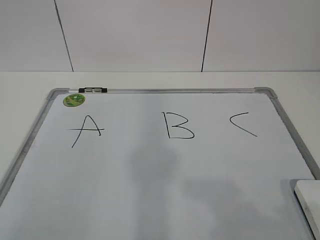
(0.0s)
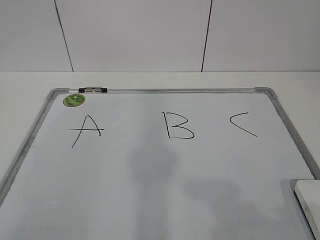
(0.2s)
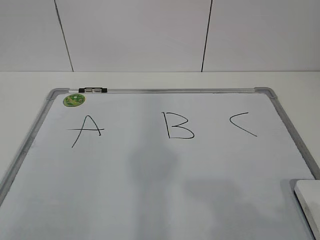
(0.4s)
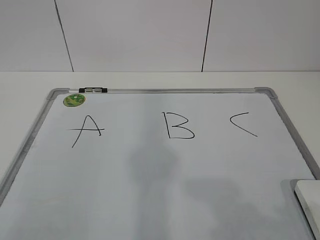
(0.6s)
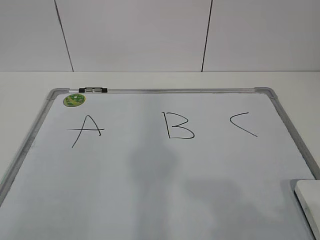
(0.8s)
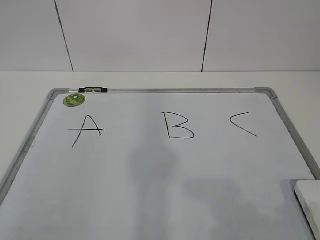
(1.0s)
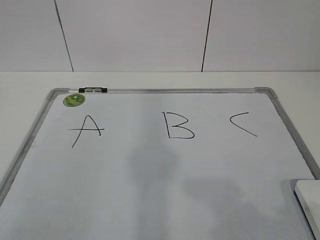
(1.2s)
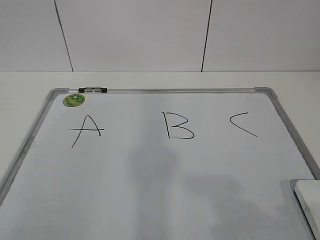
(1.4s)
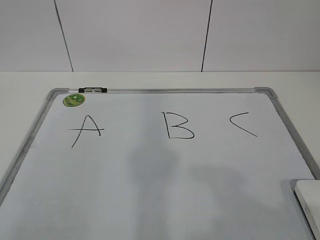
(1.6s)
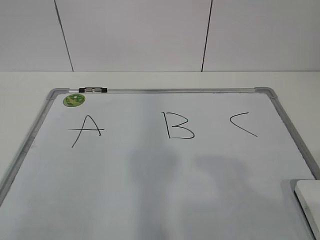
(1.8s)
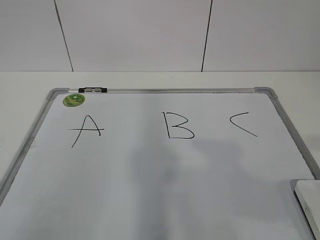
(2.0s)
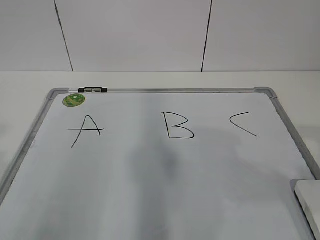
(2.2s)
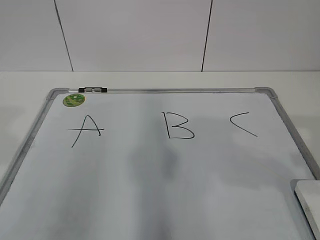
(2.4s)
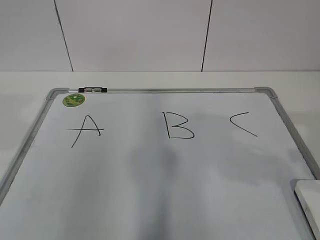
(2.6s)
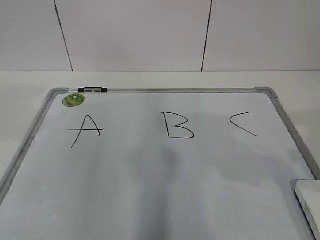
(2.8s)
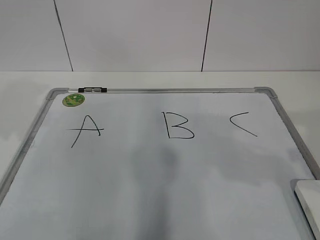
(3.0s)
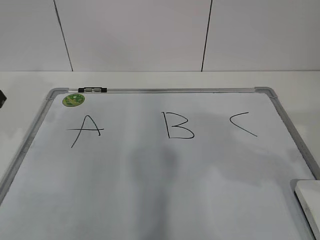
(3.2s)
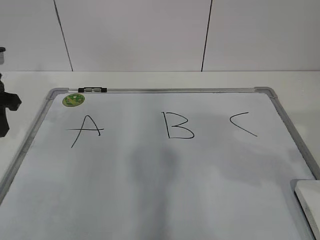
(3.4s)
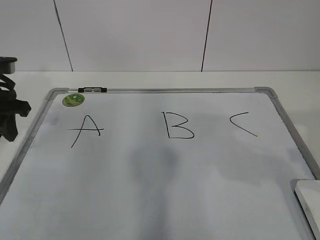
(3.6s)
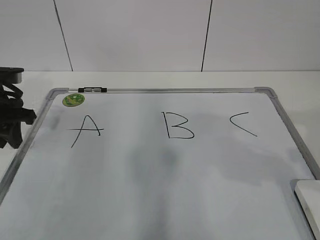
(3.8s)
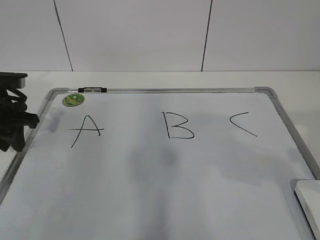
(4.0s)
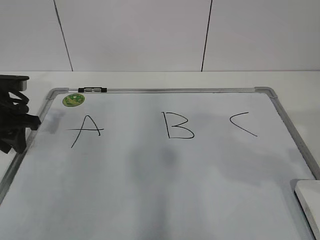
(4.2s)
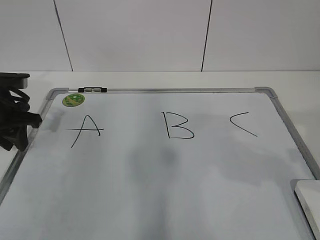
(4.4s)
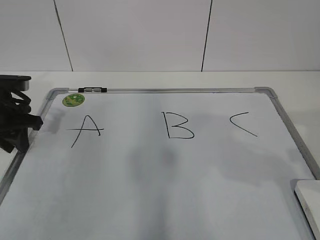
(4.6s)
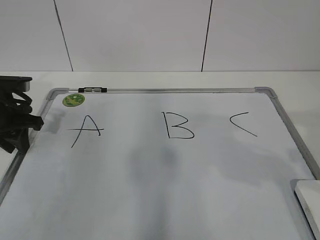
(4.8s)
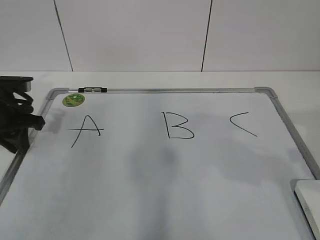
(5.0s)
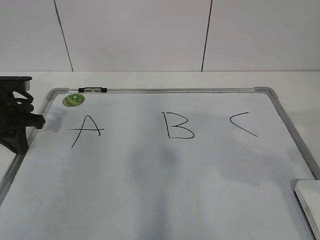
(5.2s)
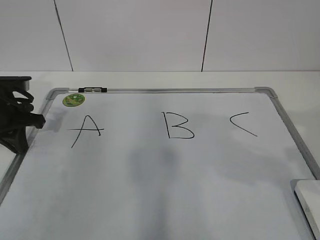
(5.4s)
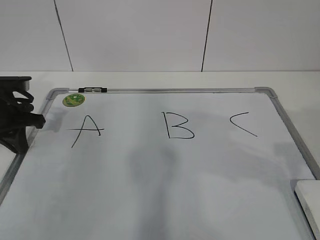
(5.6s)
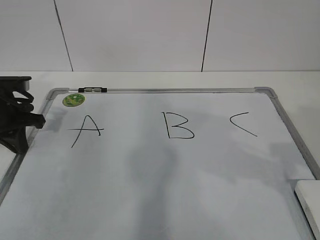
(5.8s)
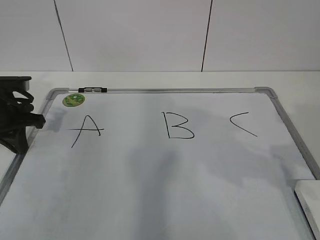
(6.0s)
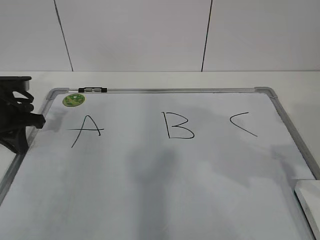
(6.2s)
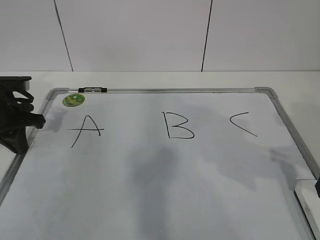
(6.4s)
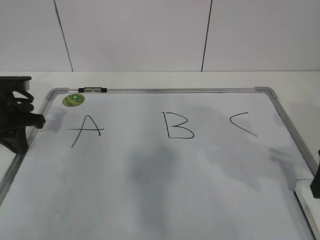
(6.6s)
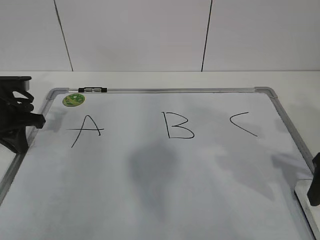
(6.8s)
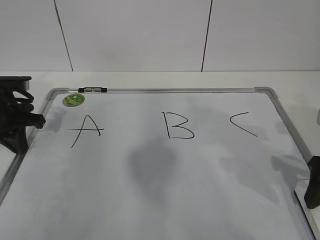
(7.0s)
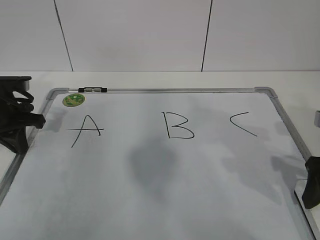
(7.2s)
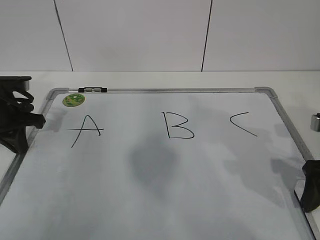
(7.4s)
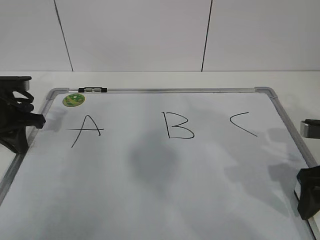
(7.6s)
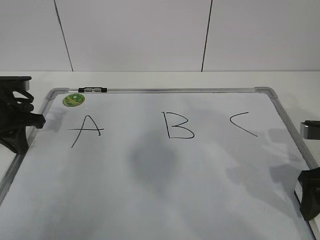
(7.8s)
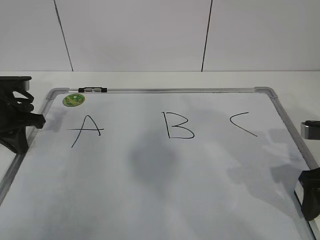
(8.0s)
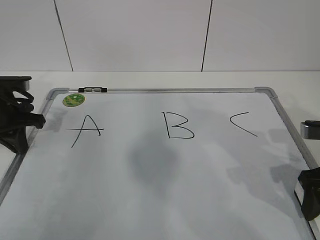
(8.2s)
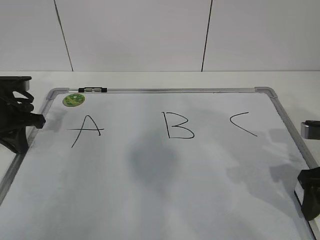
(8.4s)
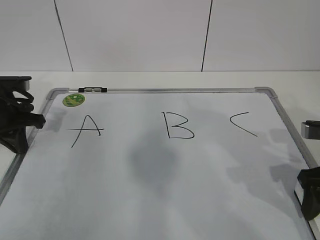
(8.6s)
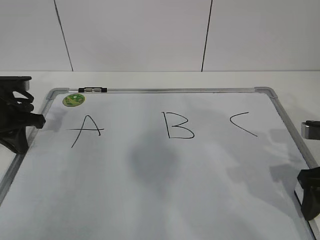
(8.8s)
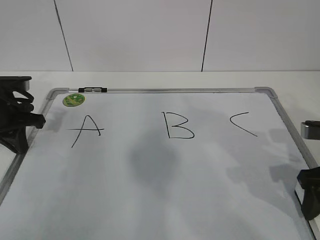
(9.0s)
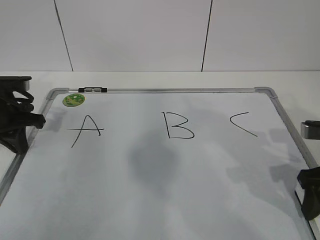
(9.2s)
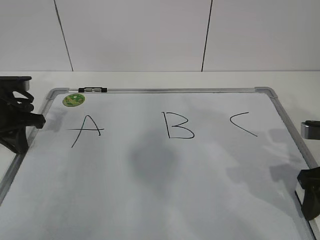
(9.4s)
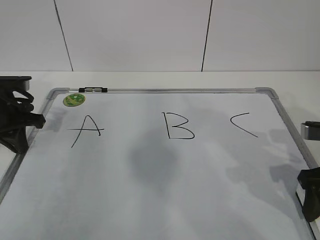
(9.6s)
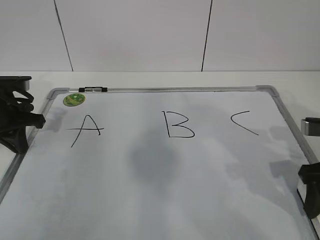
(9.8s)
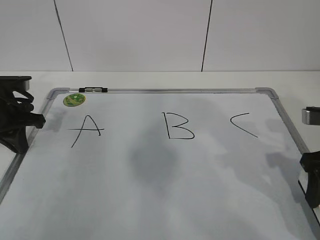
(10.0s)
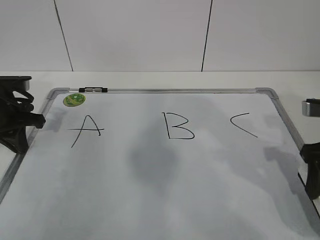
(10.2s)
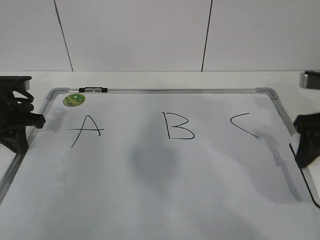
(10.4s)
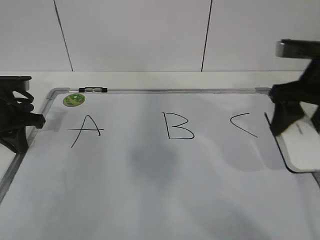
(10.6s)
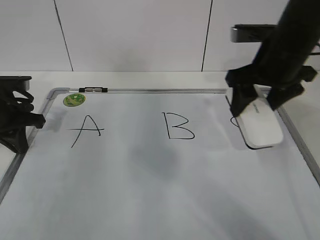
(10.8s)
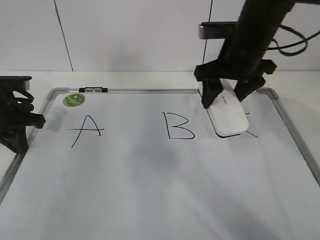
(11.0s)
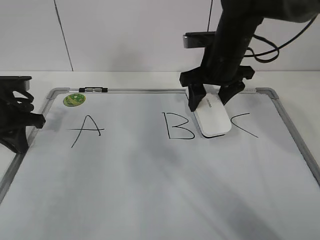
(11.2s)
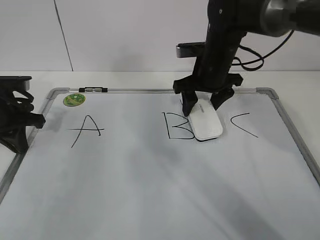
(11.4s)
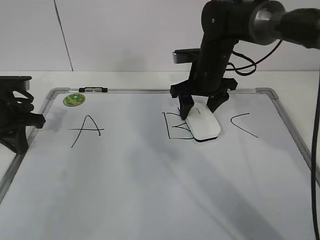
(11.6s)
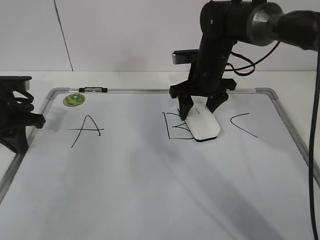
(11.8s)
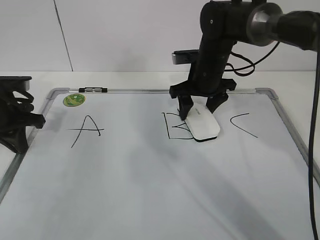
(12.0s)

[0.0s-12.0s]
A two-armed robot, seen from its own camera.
Task of the whole recording: pick up the eraser on the blackboard and erase the letter "B".
Step, 0.0s to 4.2s: Hold the drawing board steady with your left hand.
1.6s to 3.0s: The right gripper goes some 15 cm forward. Meanwhile the left gripper goes roughly 25 cm forward.
3.0s to 4.4s: The left gripper travels downward and forward by some 15 cm.
4.4s to 6.0s: The left gripper closes its fingers.
6.0s to 7.6s: The right gripper heads downward and forward, covering some 10 cm.
9.0s to 10.4s: The right gripper heads upward, covering approximately 5 cm.
10.4s to 12.0s: The right gripper heads forward and to the left, covering some 25 cm.

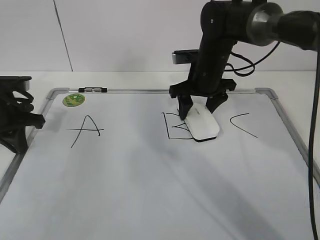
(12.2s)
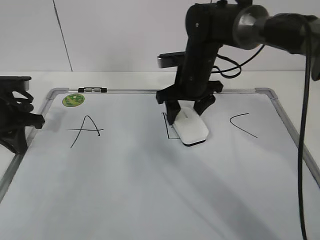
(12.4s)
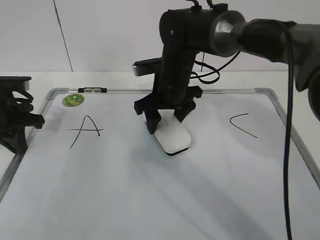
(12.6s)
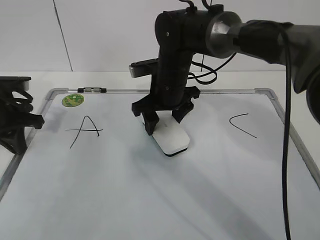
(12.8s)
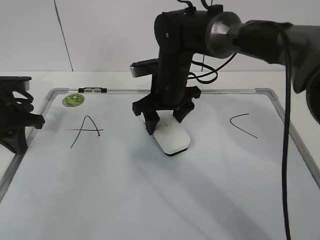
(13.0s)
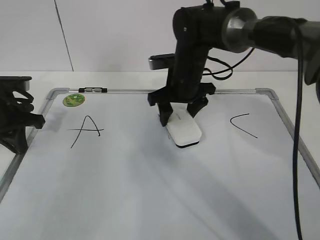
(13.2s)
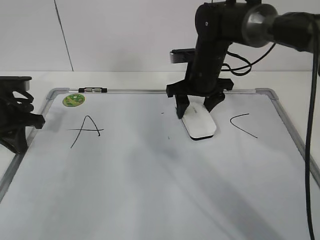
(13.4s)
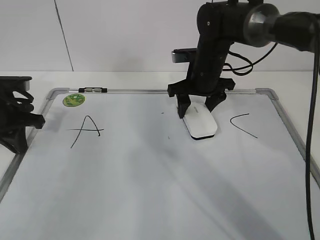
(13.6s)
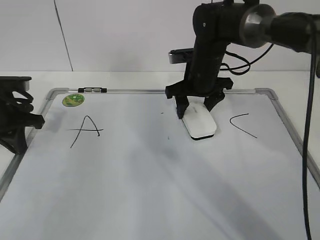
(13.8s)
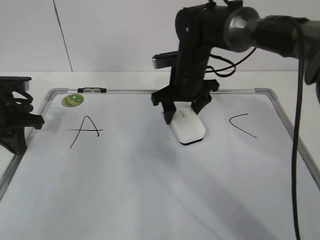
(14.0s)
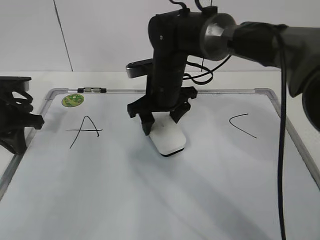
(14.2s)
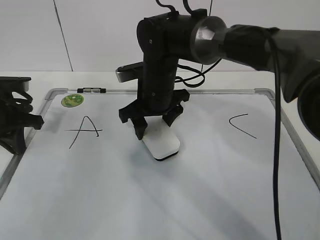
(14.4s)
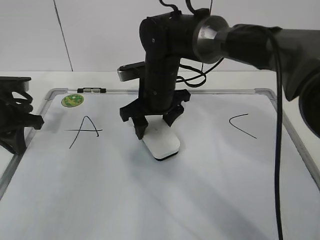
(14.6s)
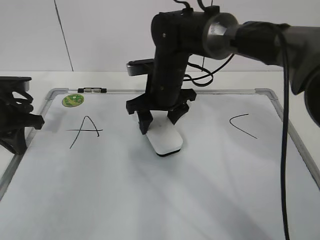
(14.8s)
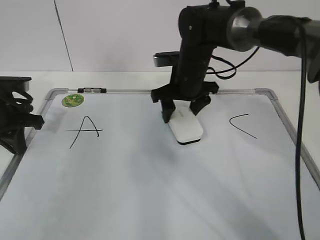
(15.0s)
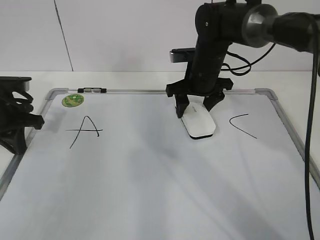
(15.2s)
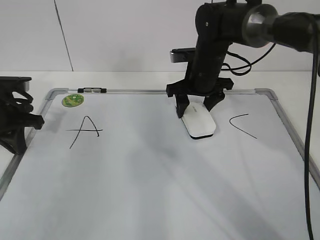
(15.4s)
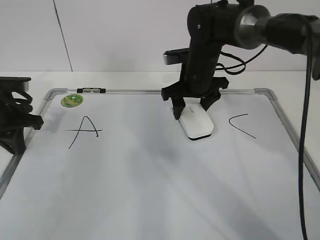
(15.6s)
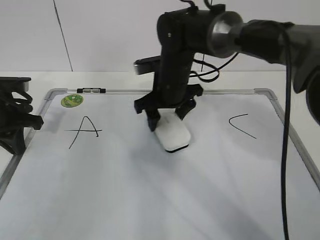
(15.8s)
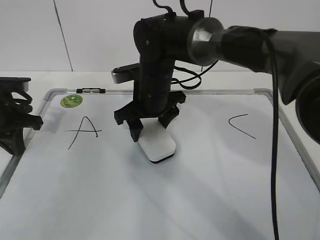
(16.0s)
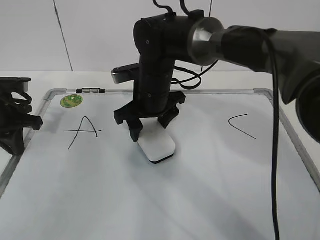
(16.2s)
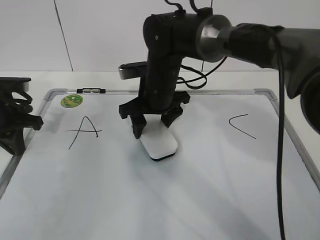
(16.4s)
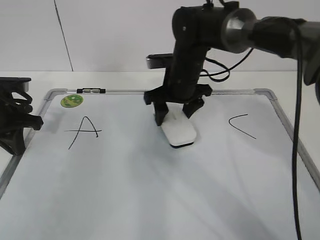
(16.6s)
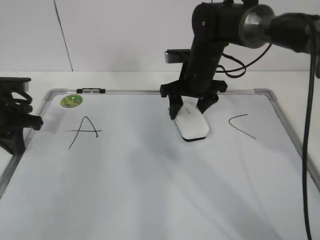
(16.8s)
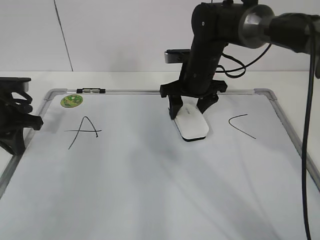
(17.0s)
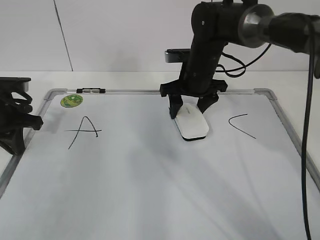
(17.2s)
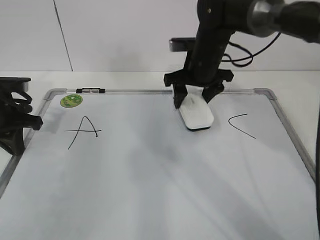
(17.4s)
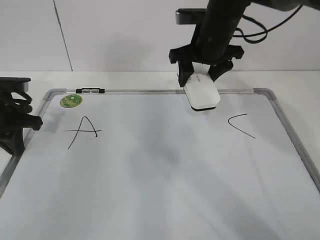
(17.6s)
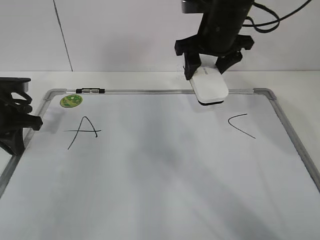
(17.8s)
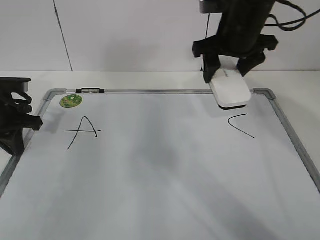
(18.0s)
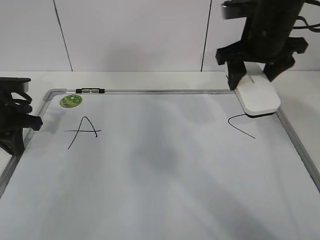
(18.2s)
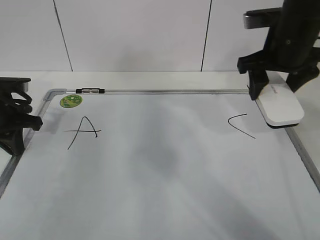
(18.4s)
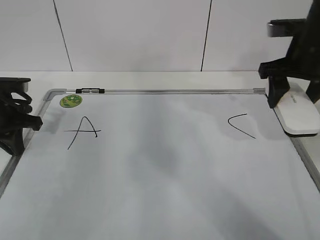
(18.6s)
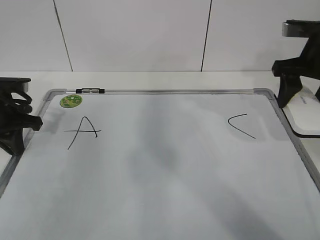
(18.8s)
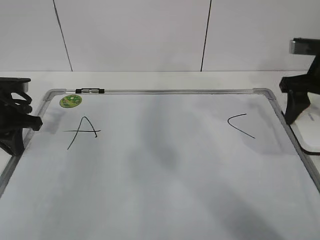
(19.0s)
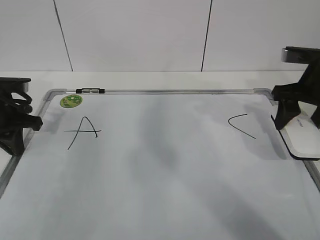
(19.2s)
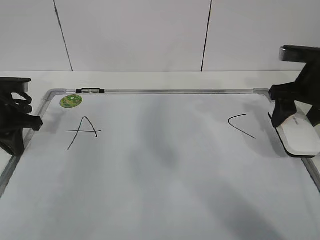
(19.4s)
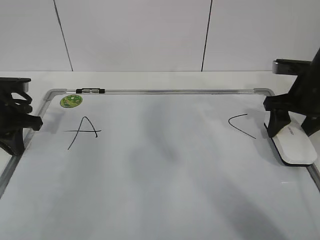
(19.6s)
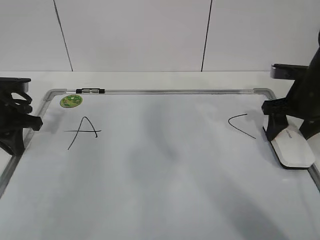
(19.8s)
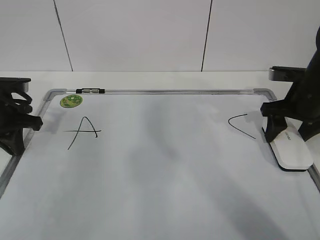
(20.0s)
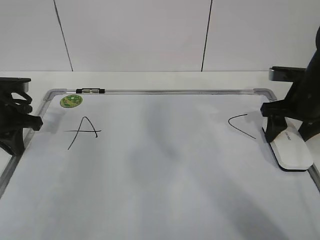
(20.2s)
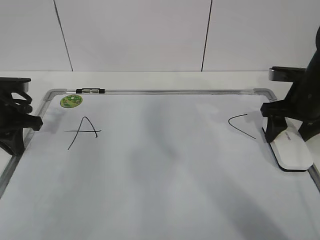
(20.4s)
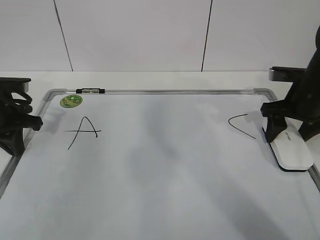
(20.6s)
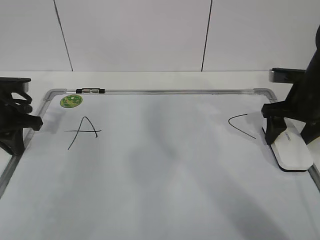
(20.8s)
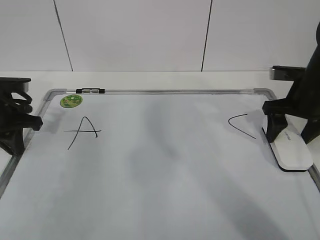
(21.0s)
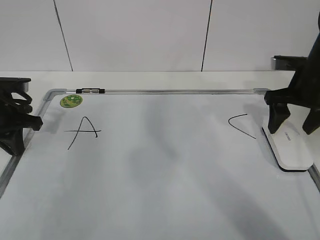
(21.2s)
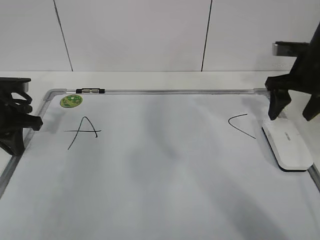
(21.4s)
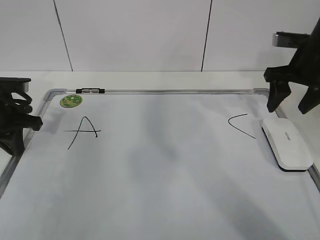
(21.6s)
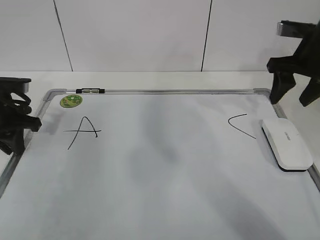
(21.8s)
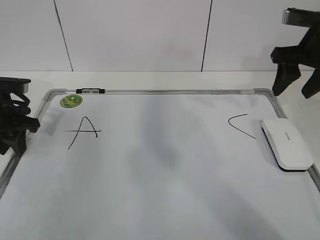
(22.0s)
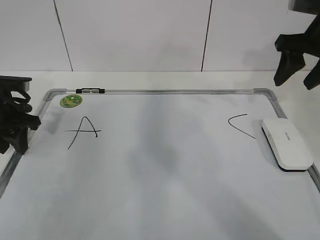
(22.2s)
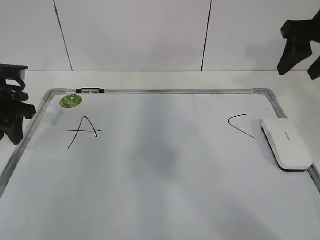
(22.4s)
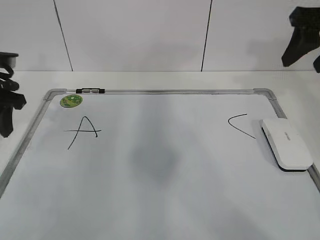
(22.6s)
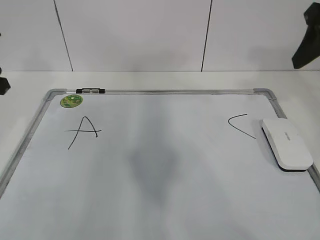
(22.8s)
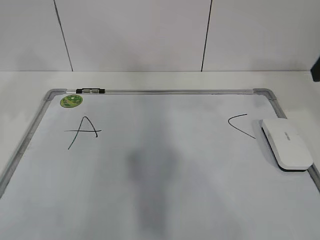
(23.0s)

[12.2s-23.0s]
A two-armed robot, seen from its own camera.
Task of the whole recording: pick up the eraser on the blackboard and erase the letter "B".
Step, 12.2s to 14.2s: Erase the letter B with your right hand.
Step, 14.4s to 17.2s: Put down the eraser with your right hand.
12.2s to 13.8s: The right gripper goes to the left and returns, approximately 10 cm each way.
13.8s to 15.2s: The right gripper goes to the left and returns, about 10 cm each way.
15.2s to 16.8s: The right gripper travels to the left and back again, some 10 cm each way.
16.8s to 18.4s: The right gripper heads upward, to the right and backward, covering approximately 15 cm.
18.4s to 20.0s: The right gripper heads downward and to the right, covering roughly 15 cm.
20.0s to 21.4s: The right gripper opens up.
21.4s to 23.0s: The left gripper travels upward by about 15 cm, and opens up, while the right gripper moves upward and backward, roughly 20 cm, and closes.
